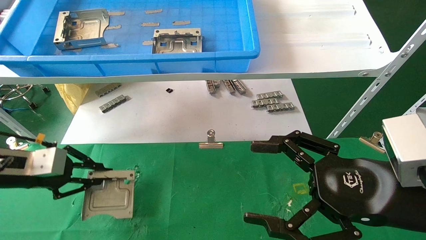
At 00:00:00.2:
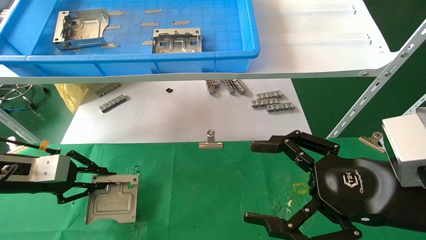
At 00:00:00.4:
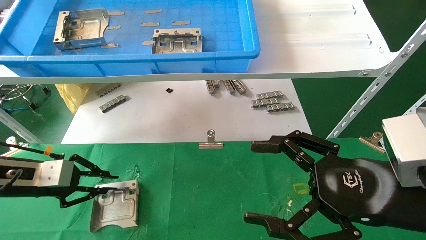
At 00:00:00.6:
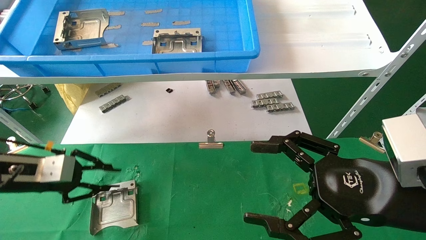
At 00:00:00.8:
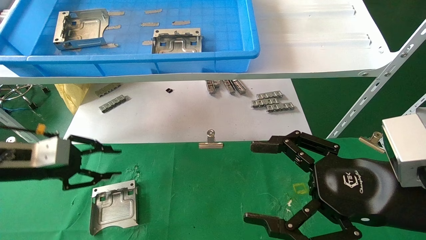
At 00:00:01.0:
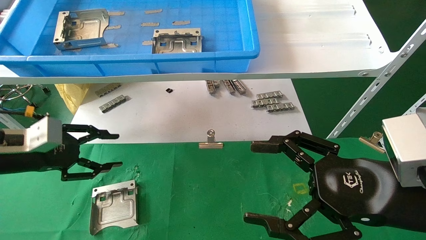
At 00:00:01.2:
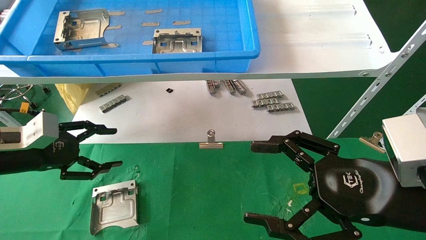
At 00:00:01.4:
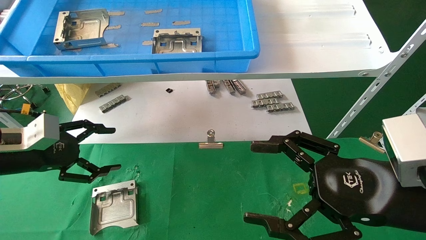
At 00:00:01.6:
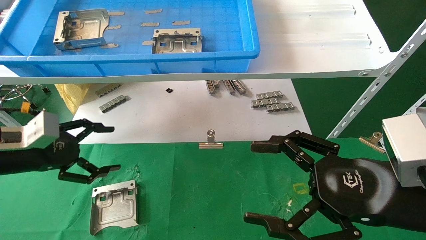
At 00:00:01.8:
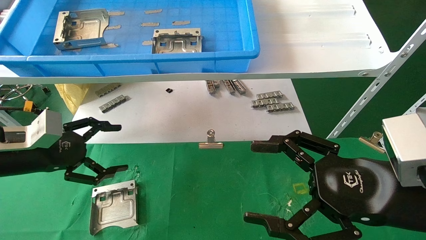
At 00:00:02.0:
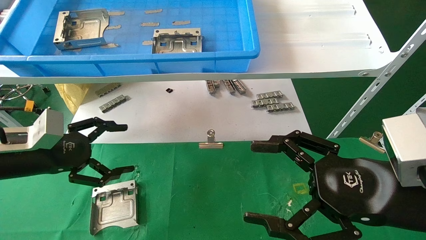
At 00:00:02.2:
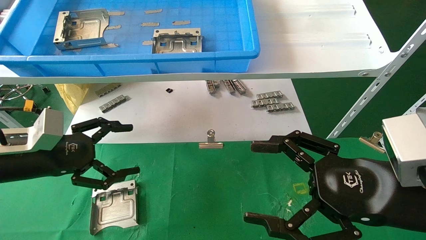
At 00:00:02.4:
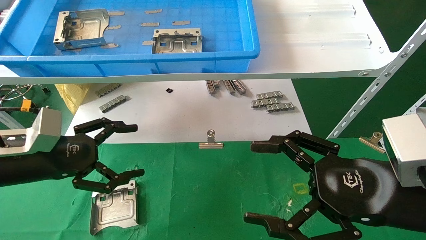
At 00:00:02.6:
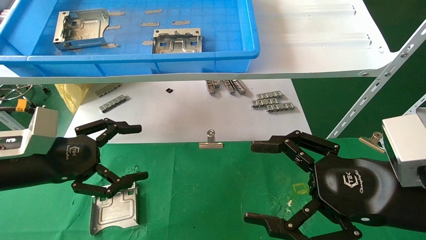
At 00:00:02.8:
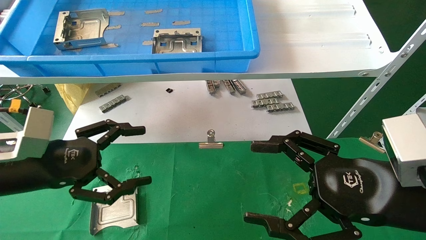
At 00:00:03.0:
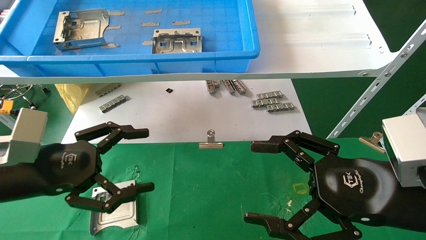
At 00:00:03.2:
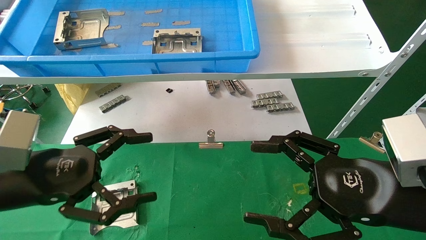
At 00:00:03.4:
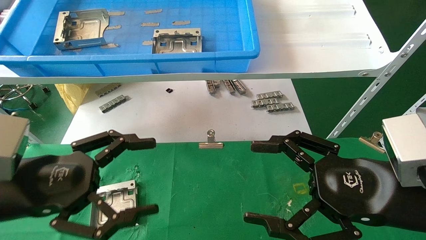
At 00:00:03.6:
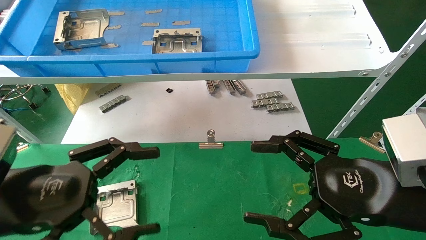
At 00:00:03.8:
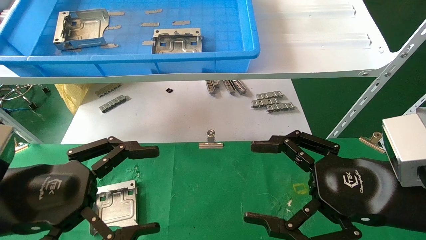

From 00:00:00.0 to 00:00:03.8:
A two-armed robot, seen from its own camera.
Task of the whole recording: use the mechanical arm to pick up the parts and place them on the table.
From 00:00:00.0 to 00:00:01.2: The left gripper opens its fingers.
From 00:00:01.2 to 00:00:02.6: The left gripper travels to the right by roughly 5 cm, and opens up.
From 00:00:02.6 to 00:00:03.8: The left gripper is displaced backward by roughly 10 cm.
